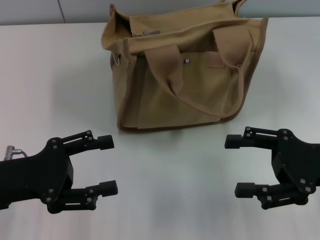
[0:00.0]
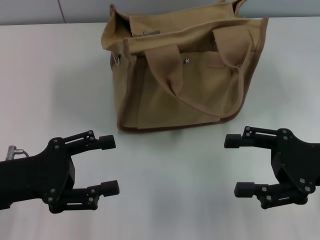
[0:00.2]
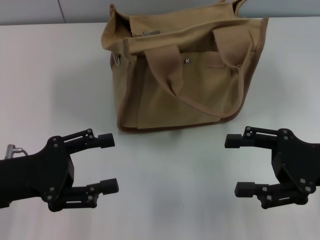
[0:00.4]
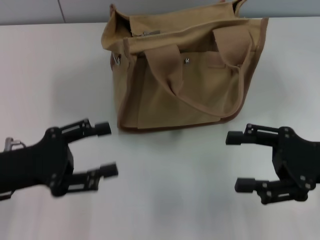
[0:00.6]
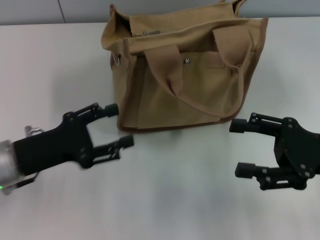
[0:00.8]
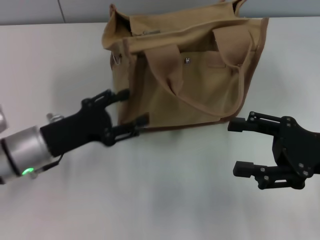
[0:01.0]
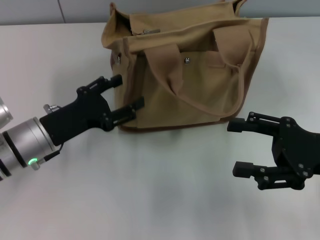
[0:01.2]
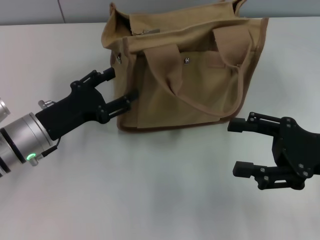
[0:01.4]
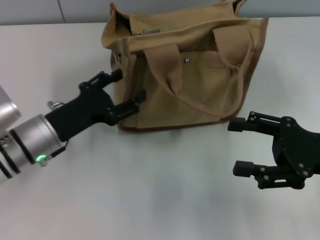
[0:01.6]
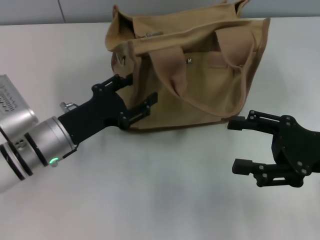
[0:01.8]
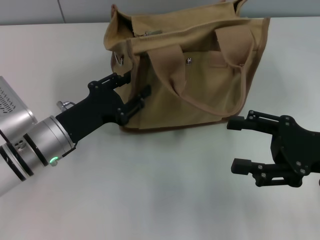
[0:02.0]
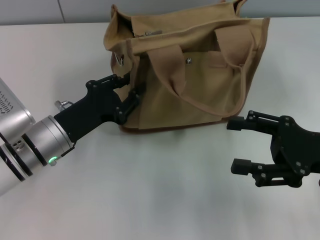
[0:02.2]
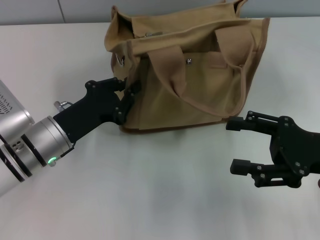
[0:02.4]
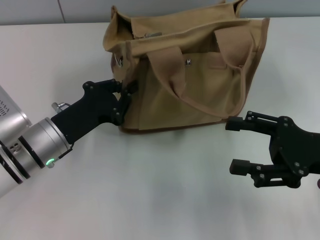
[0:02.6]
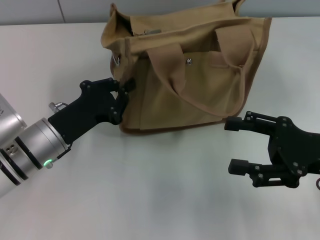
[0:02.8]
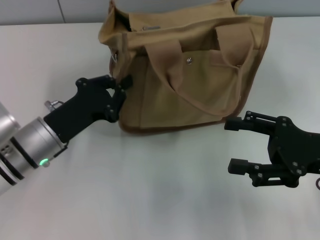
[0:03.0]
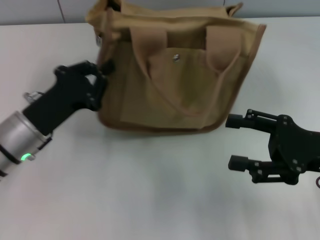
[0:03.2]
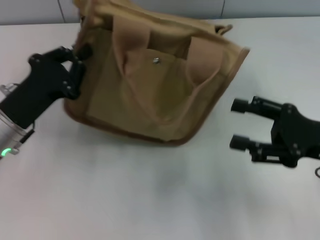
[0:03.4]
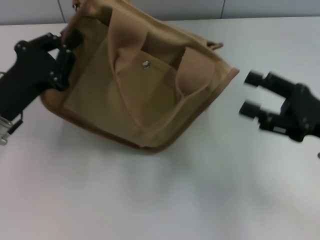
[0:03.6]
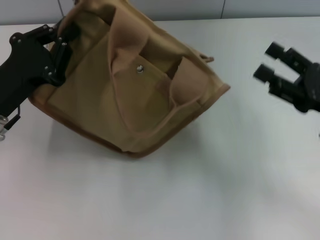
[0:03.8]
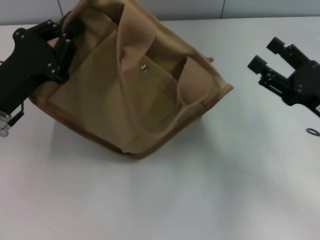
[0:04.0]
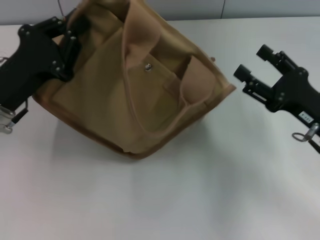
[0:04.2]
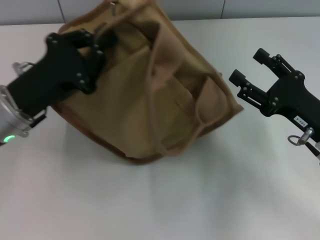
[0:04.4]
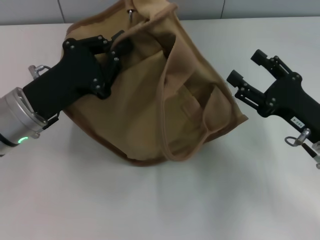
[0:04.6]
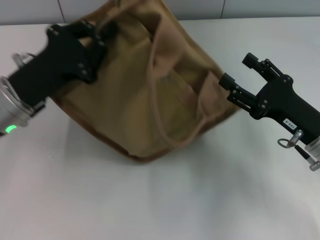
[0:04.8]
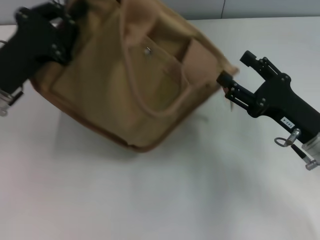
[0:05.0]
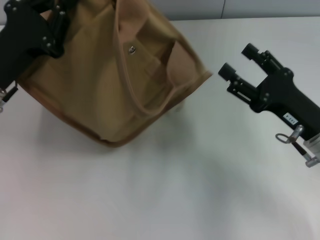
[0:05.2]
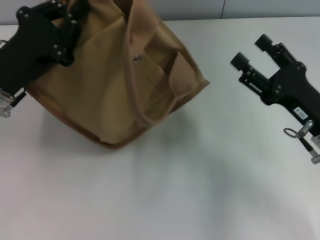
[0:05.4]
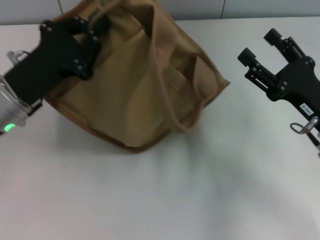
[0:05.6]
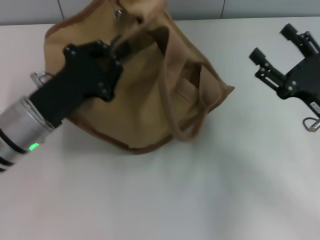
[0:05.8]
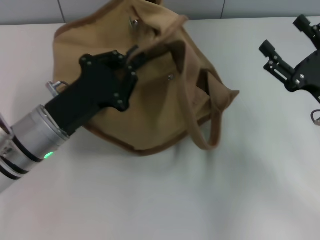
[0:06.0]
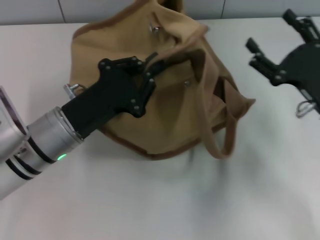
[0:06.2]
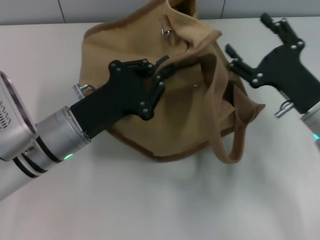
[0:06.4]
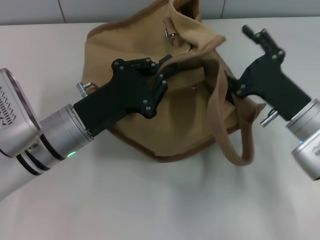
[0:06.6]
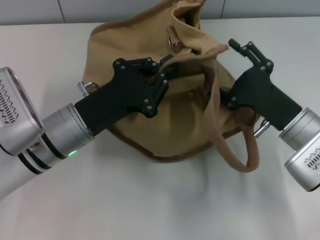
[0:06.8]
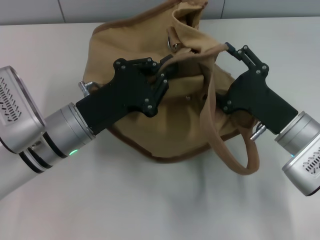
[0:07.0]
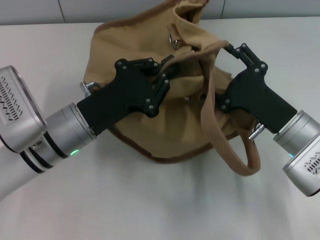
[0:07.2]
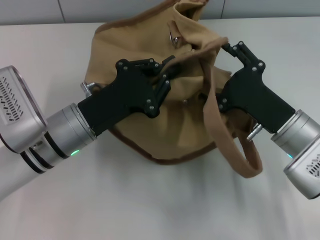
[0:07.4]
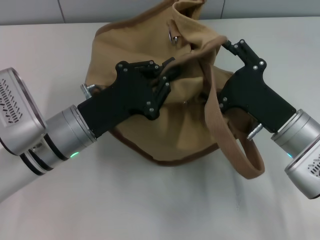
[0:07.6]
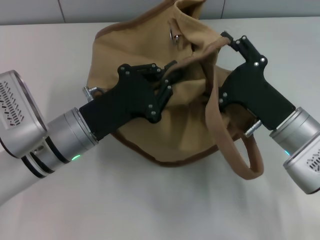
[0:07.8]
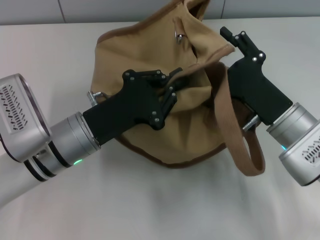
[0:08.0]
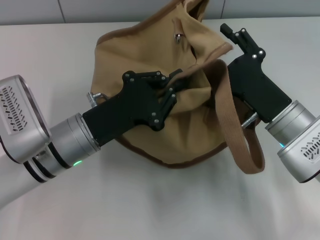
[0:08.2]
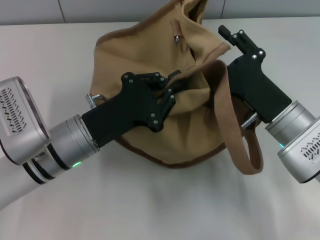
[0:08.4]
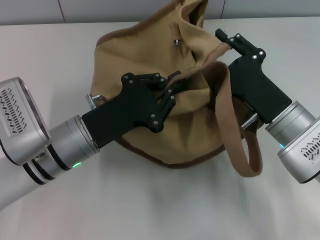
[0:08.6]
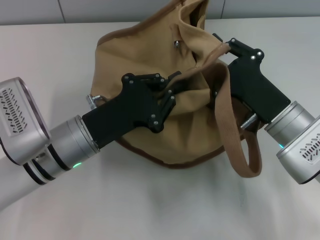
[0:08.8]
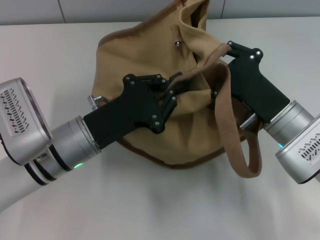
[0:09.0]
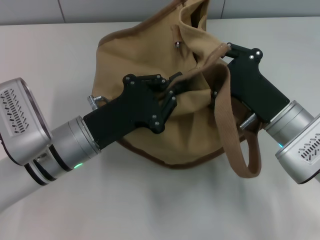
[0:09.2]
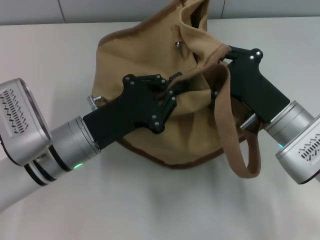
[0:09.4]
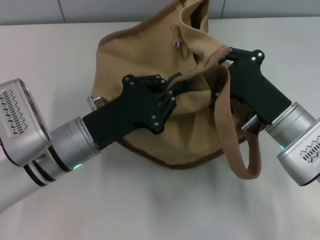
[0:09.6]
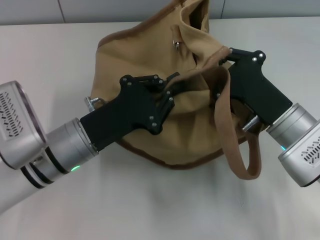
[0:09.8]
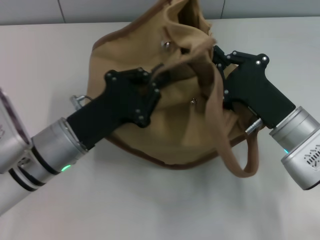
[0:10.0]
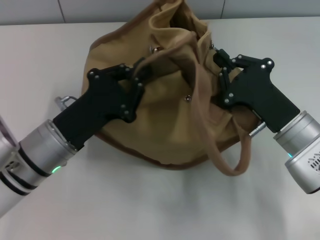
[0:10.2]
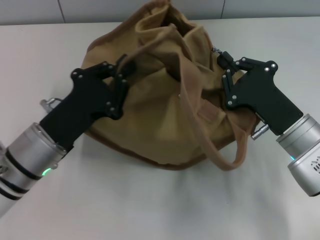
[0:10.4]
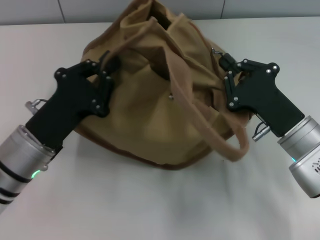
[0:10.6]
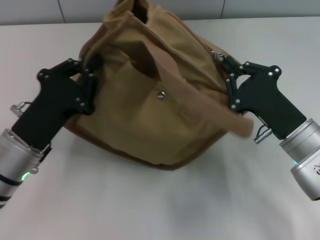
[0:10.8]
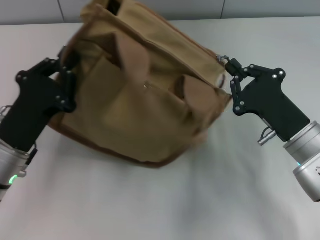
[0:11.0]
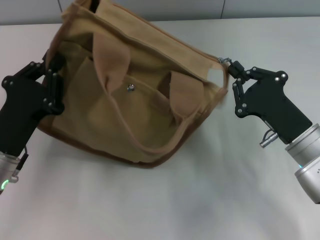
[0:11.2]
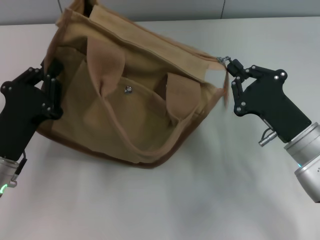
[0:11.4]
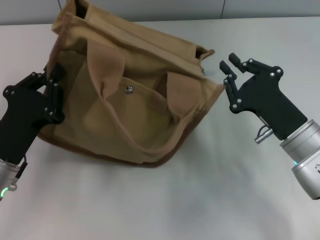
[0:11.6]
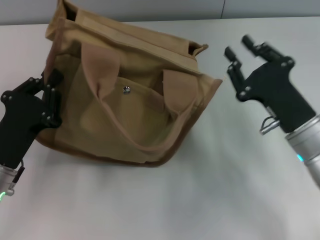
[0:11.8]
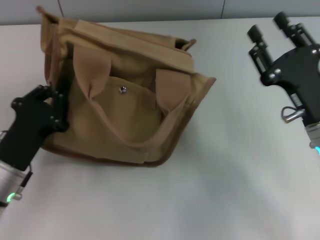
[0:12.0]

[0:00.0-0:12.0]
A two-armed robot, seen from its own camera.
Step, 0:00.0 to 0:11.4: Pull open the zipper with your right hand.
0:00.0 to 0:01.6: The left gripper goes approximately 10 cm forward and to the right.
0:01.6 to 0:03.0: The left gripper closes up.
0:03.0 to 0:04.4: The left gripper moves upward, approximately 5 cm.
0:06.0 to 0:07.6: The right gripper is displaced to the left by approximately 10 cm.
0:07.6 to 0:09.0: The right gripper closes up.
0:09.0 to 0:10.4: The right gripper closes up.
0:10.4 to 0:12.0: The right gripper opens up, while the left gripper moves roughly 5 cm.

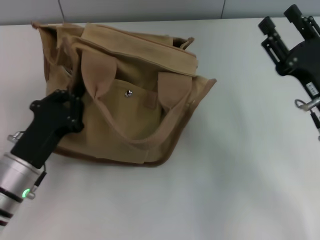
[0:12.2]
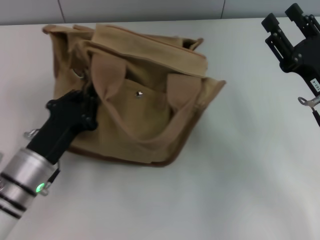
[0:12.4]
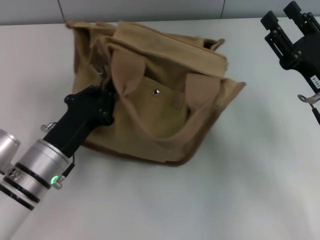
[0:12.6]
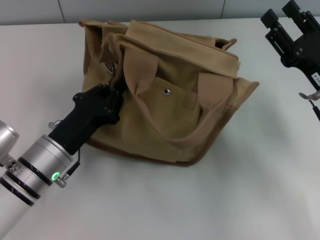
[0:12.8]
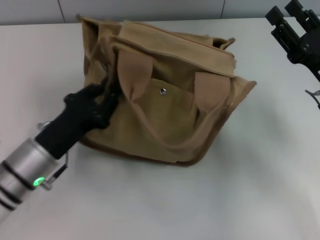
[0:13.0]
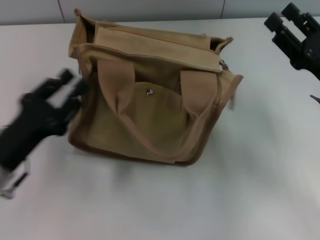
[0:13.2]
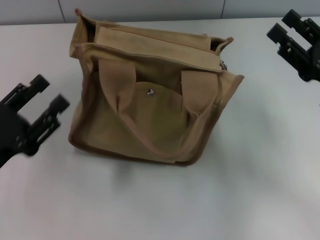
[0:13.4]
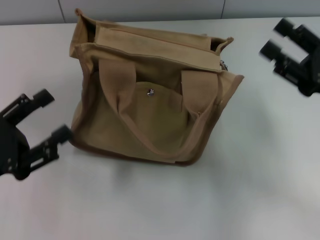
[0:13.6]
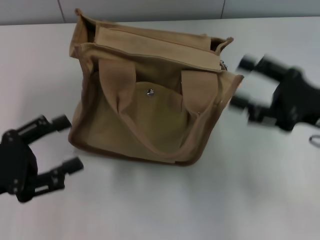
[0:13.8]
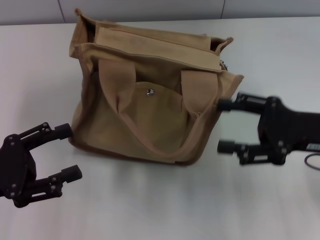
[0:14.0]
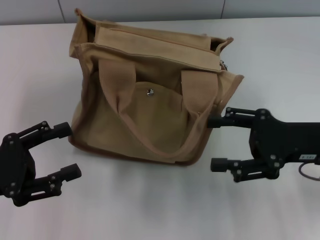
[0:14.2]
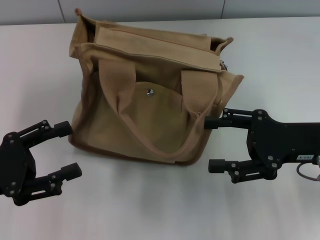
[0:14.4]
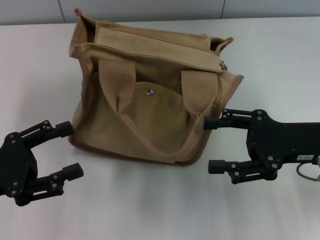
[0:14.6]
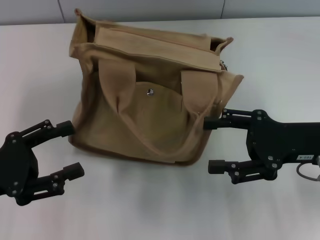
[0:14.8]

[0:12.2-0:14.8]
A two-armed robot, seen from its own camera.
Step, 0:12.2 to 0:13.0: Grab the bag with your left hand.
0:12.2 to 0:13.4: The left gripper shifts roughly 5 cm to the left, and opens up.
0:13.4 to 0:14.8: The left gripper opens up.
